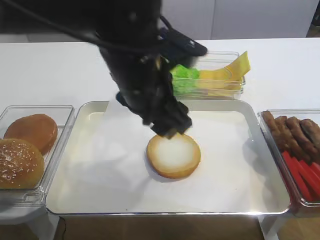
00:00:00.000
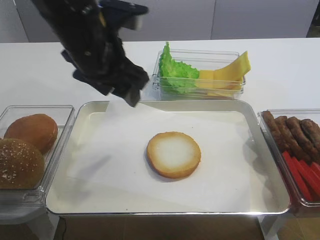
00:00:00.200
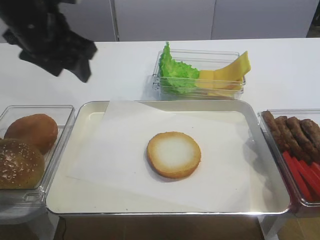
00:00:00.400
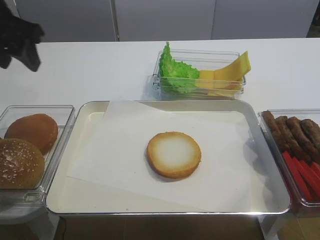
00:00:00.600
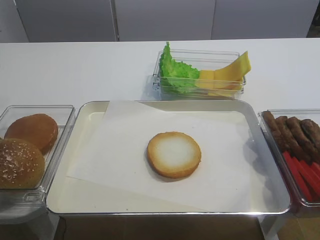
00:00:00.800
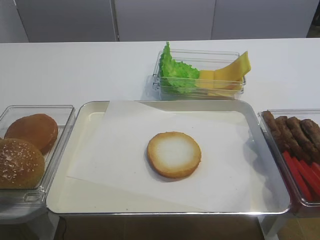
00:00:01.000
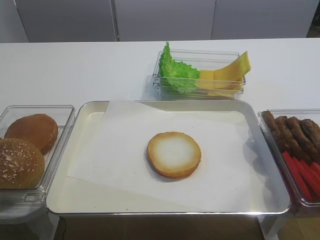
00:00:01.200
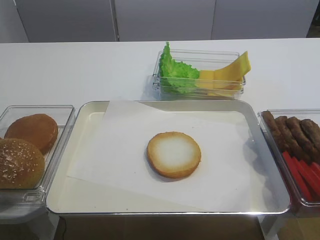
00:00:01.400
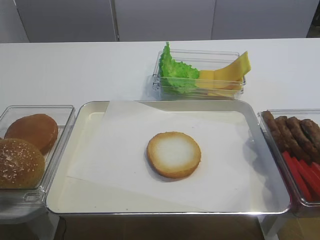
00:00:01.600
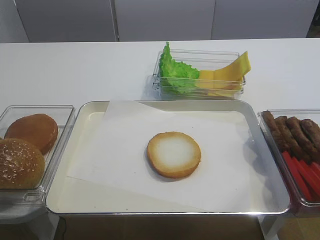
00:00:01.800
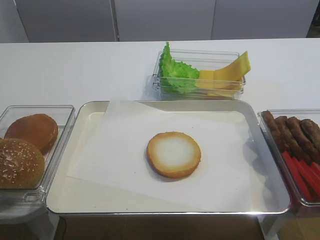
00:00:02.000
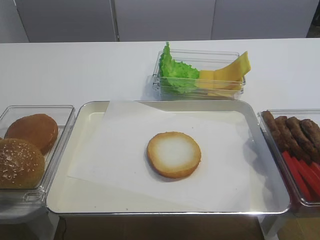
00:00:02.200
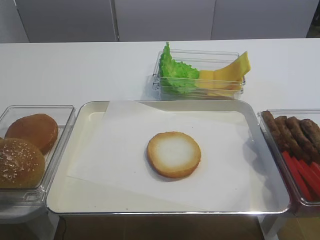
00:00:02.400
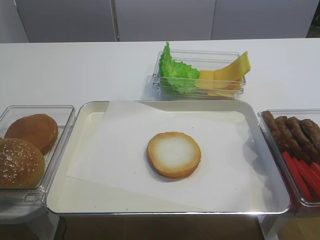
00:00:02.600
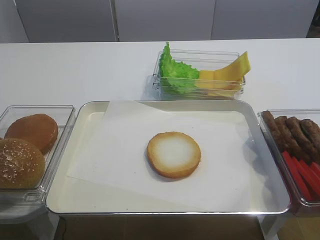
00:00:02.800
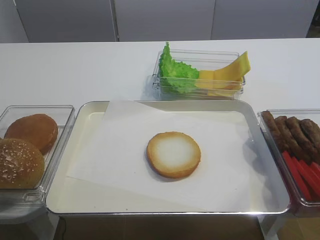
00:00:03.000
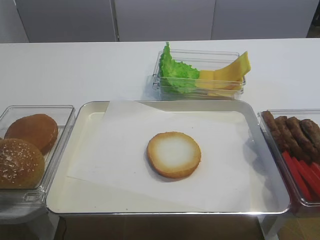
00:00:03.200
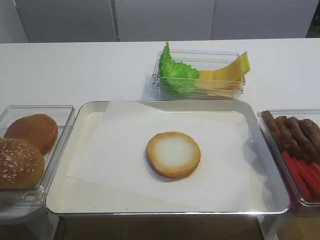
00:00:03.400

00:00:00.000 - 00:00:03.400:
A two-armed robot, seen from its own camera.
00:00:00.000 - 00:00:01.600: The left gripper moves backward and to the left, about 35 cm.

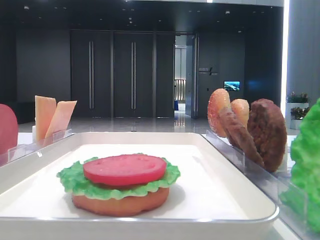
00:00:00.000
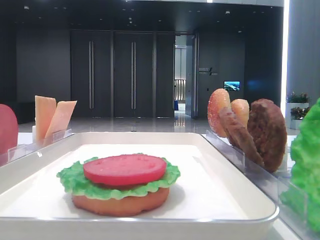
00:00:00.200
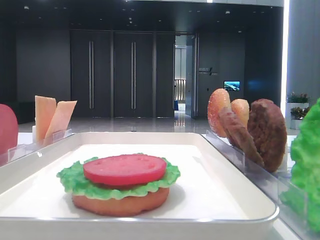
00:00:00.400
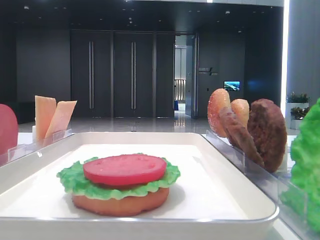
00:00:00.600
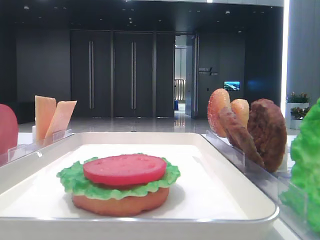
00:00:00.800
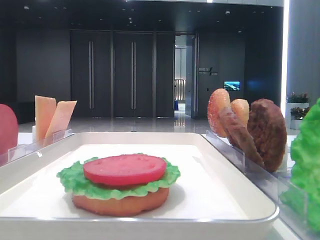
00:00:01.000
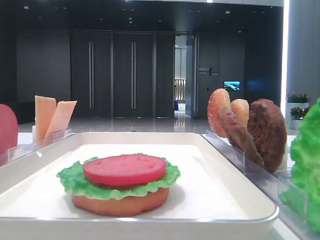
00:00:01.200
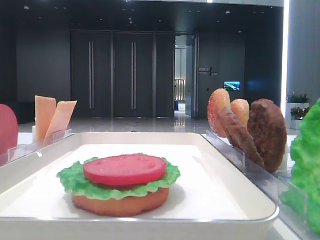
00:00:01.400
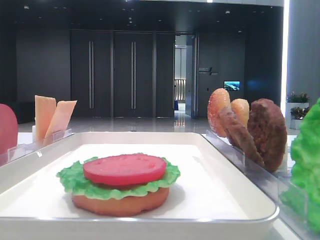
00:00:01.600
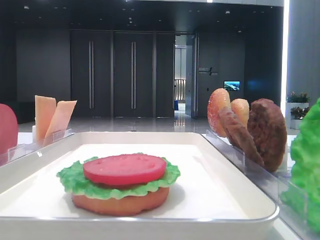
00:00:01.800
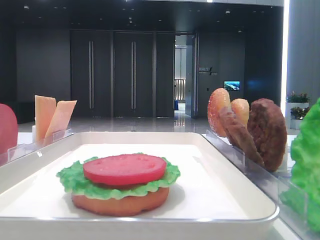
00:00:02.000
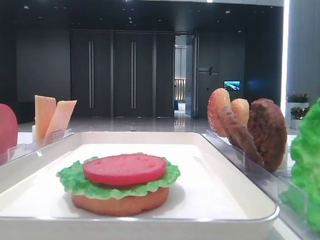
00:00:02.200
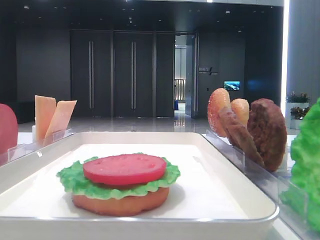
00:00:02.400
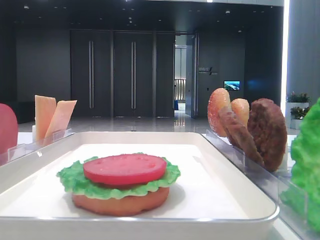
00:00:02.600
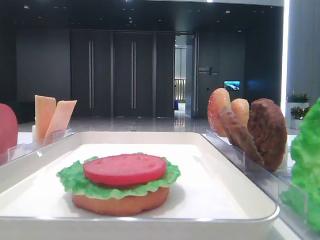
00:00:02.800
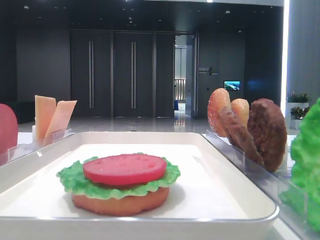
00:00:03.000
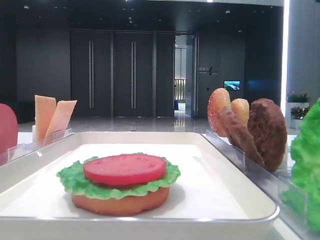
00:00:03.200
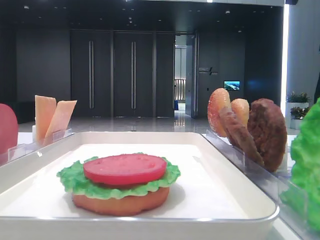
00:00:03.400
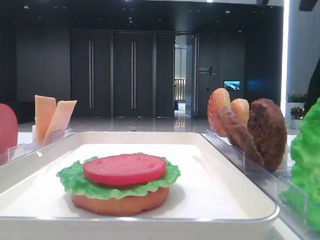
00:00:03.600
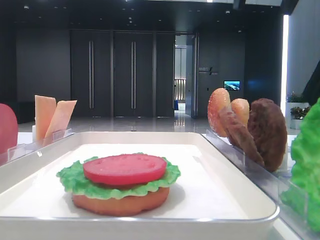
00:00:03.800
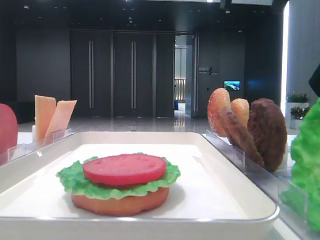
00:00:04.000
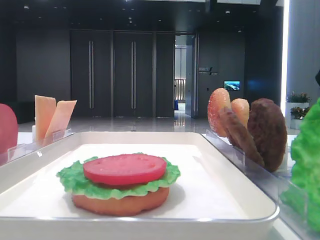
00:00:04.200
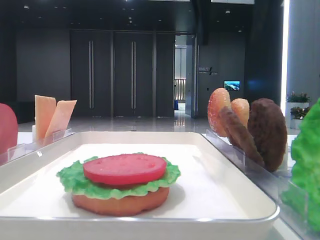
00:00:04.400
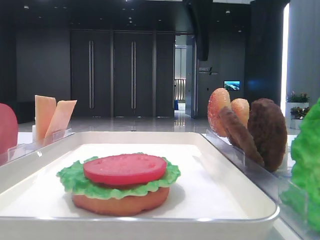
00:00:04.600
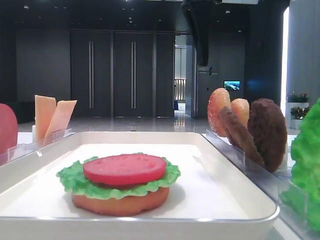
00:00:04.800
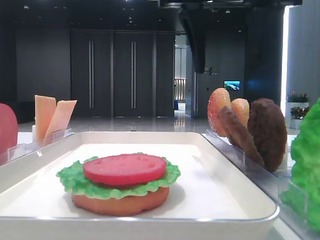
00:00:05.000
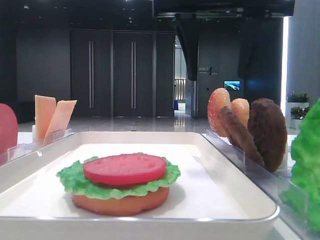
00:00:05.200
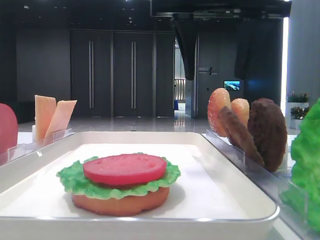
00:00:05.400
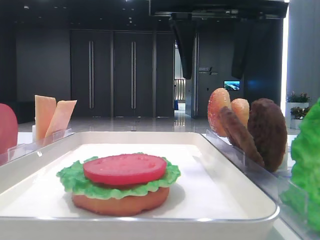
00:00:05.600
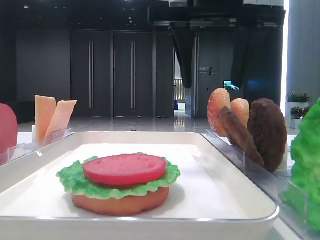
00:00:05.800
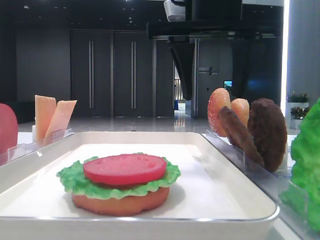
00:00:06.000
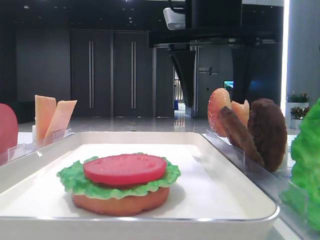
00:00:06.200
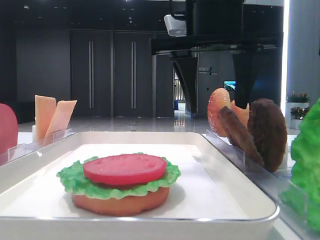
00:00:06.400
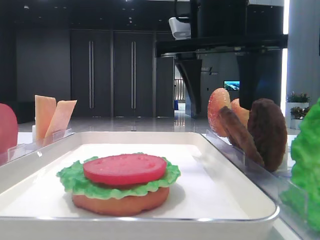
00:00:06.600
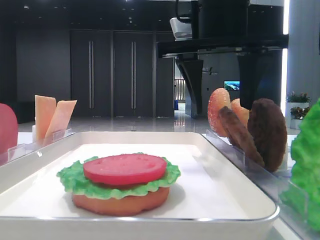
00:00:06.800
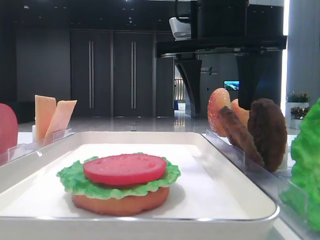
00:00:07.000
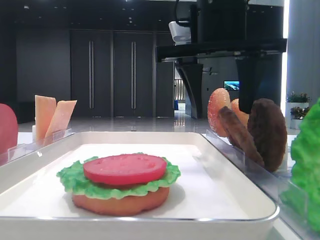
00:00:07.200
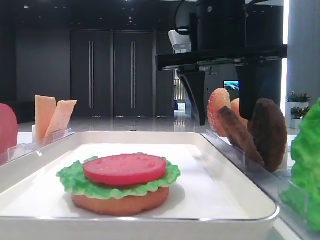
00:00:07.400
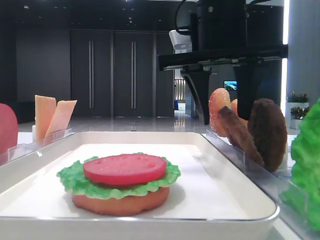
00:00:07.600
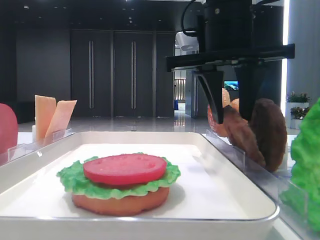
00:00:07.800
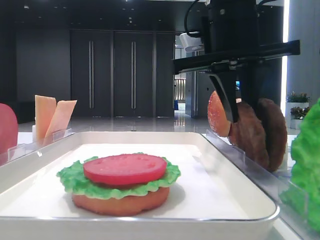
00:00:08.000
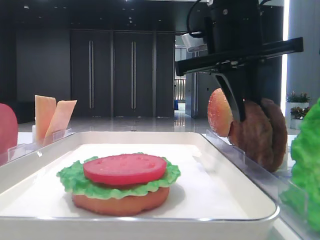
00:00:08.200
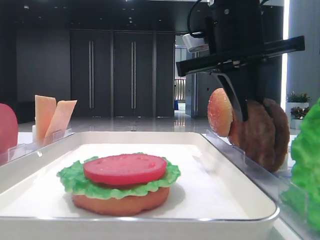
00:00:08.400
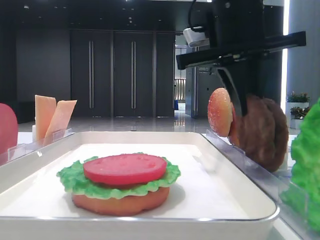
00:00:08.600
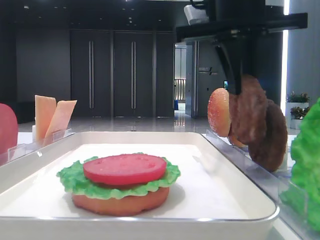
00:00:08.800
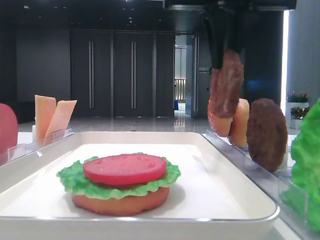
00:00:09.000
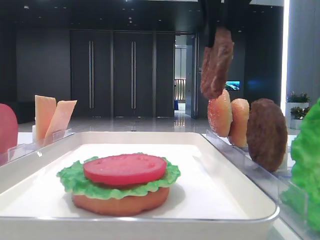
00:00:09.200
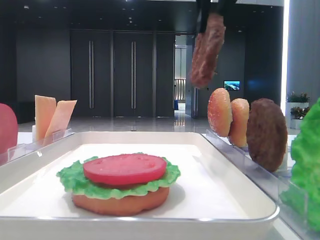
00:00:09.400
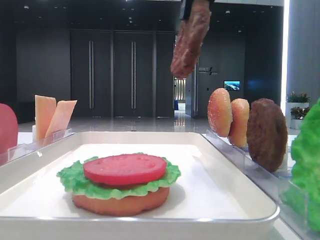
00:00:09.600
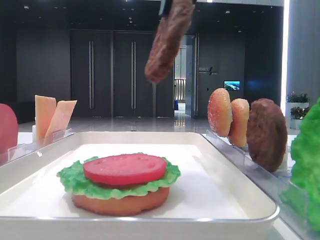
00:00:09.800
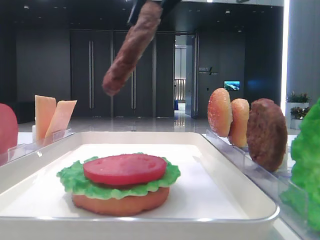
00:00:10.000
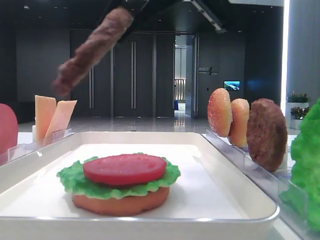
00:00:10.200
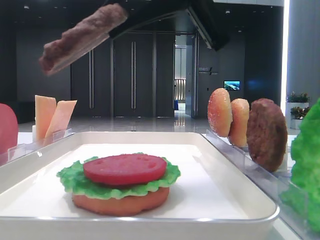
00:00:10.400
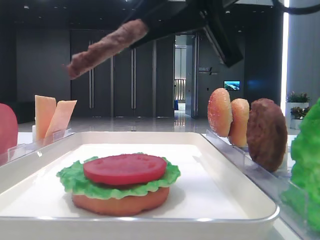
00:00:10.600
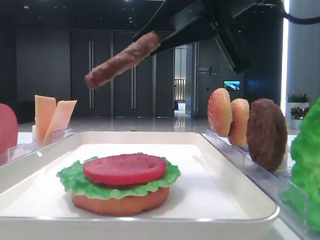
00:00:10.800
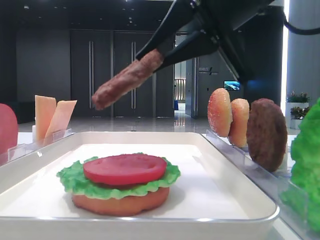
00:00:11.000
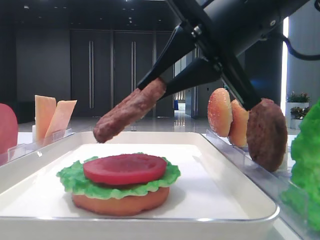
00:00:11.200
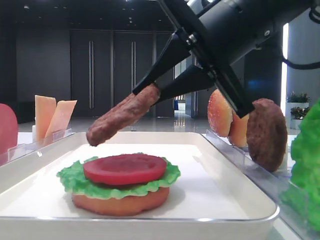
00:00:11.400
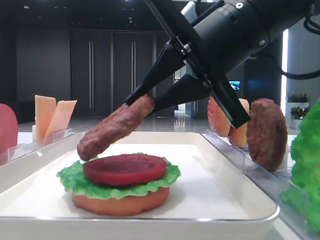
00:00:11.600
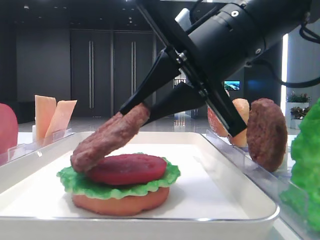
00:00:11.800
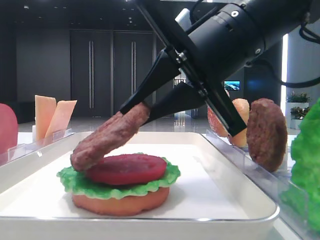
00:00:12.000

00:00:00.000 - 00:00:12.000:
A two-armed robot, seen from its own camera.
Step, 00:00:00.000 - 00:00:08.000: Grab the patty with the right hand.
00:00:03.000 - 00:00:04.400: The right gripper goes about 20 cm to the left.
00:00:04.400 - 00:00:06.000: The right gripper heads downward, covering roughly 5 cm.
00:00:06.000 - 00:00:07.600: The grippers stay close to where they were, moving slightly.
00:00:07.600 - 00:00:09.000: The right gripper moves upward, approximately 5 cm, and closes its fingers.
00:00:09.000 - 00:00:10.400: The right gripper is displaced backward by approximately 5 cm.
00:00:10.400 - 00:00:12.000: The right gripper heads downward, covering approximately 10 cm.

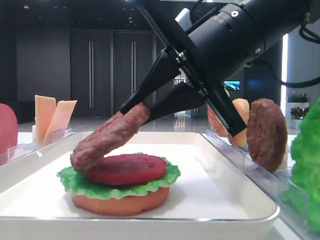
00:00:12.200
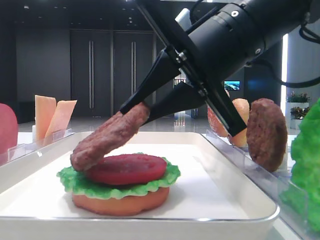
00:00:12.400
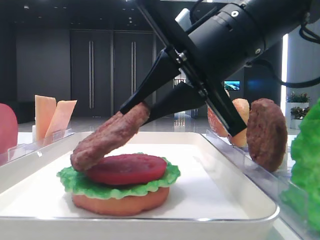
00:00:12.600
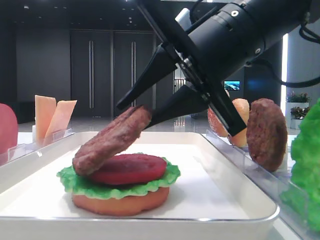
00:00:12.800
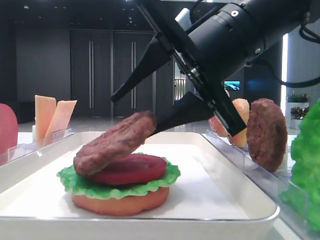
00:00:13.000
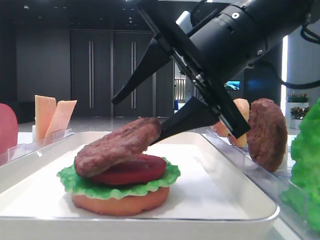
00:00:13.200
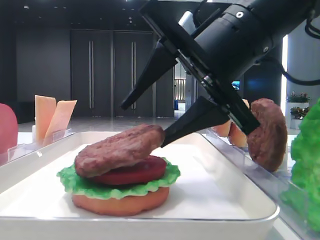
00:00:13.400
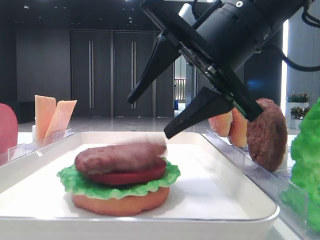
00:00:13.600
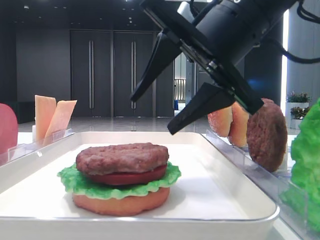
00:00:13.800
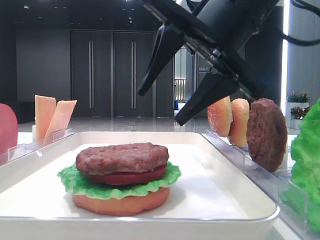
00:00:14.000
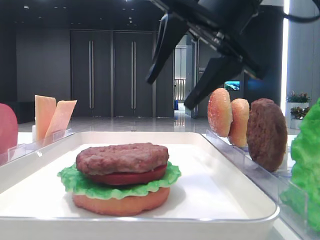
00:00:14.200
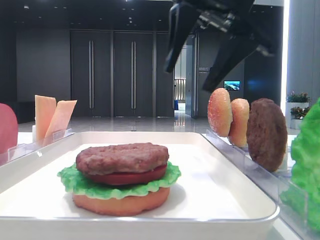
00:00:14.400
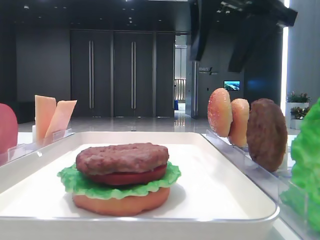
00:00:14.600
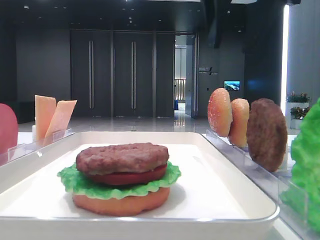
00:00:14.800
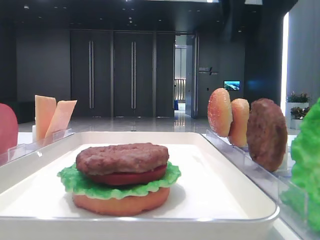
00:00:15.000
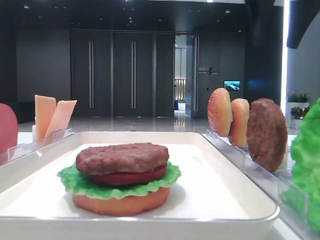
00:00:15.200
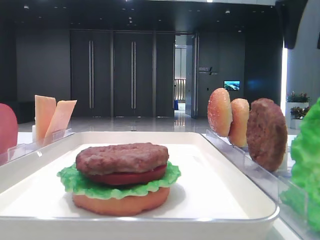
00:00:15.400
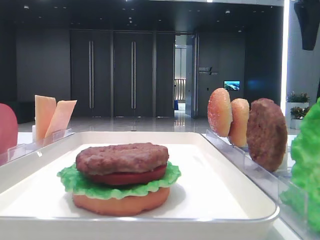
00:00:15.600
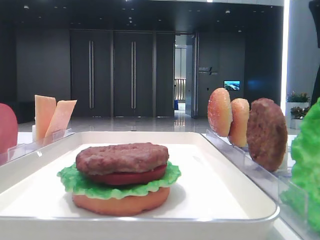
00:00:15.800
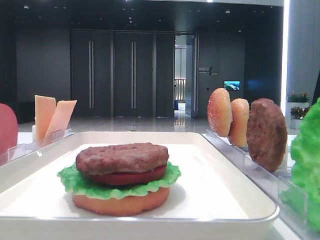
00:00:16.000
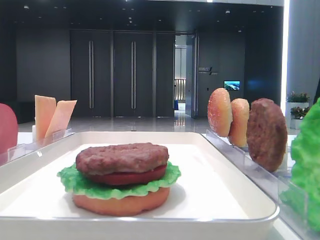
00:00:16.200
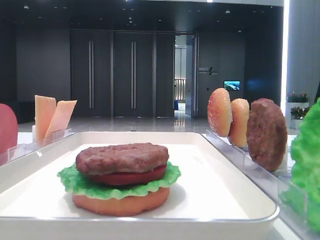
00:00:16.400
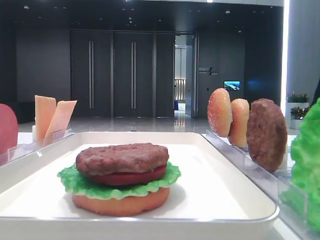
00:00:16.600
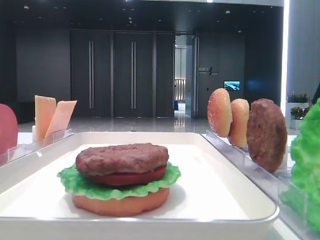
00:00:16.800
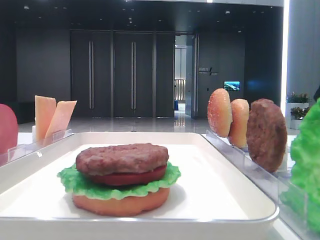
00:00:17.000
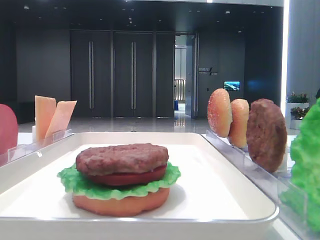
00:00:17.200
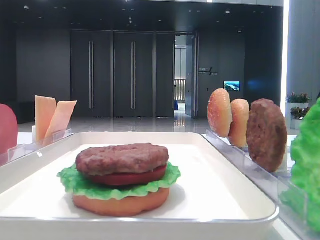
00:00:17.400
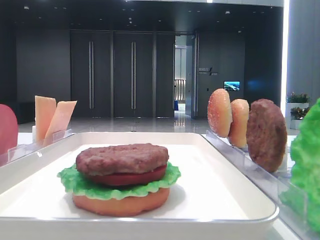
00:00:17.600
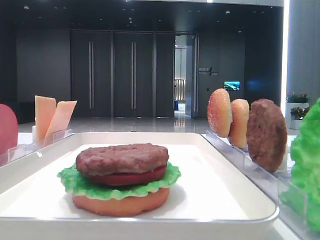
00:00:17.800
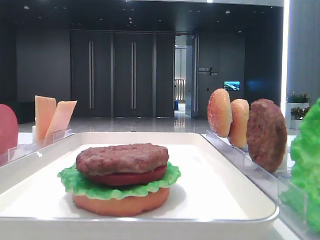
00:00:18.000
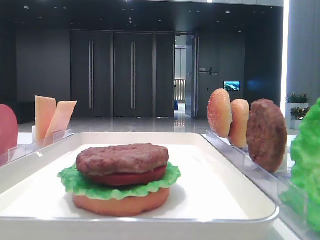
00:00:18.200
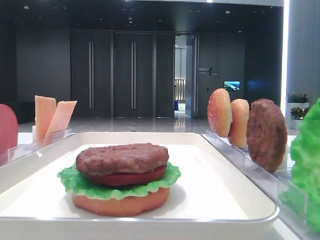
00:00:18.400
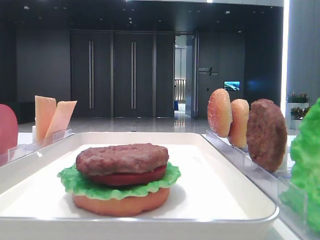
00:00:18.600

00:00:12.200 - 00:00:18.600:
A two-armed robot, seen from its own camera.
00:00:12.200 - 00:00:13.800: The right gripper opens.
00:00:13.800 - 00:00:15.400: The right gripper moves to the right, upward and forward, approximately 20 cm.
00:00:15.400 - 00:00:17.000: The right gripper heads backward, covering approximately 30 cm.
